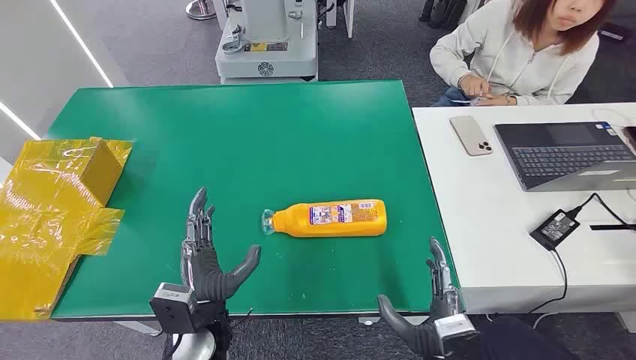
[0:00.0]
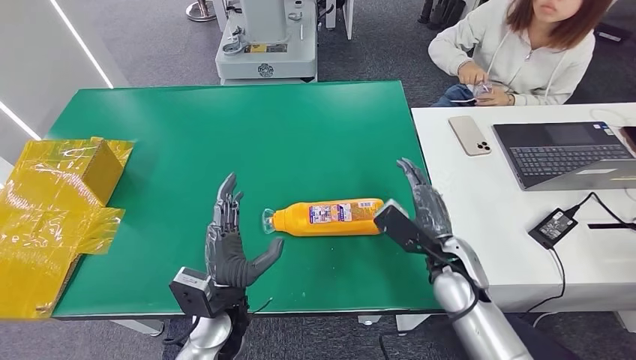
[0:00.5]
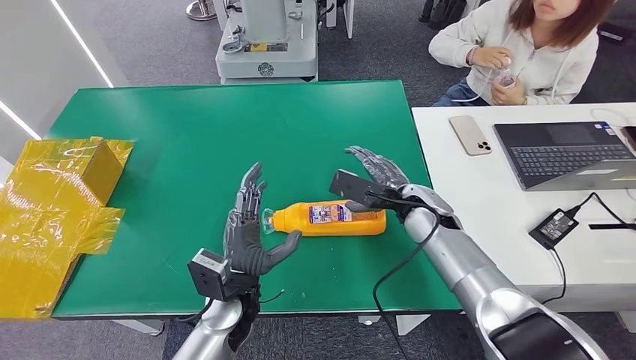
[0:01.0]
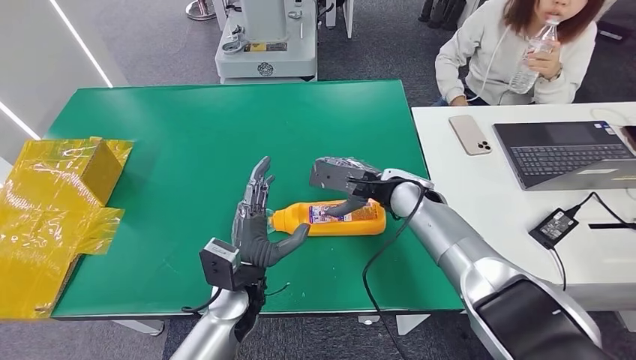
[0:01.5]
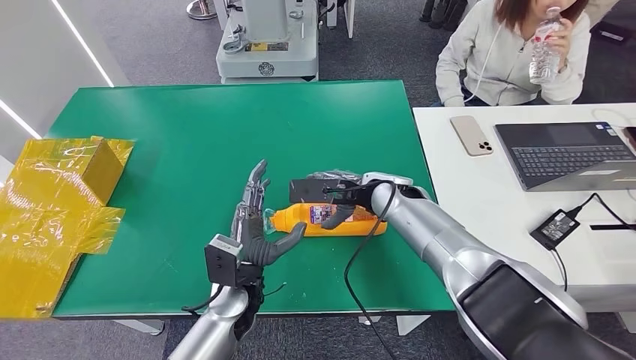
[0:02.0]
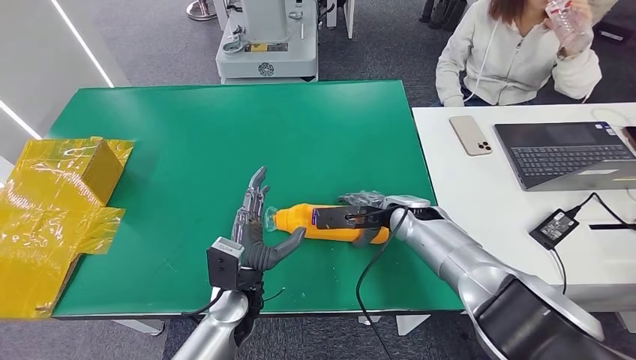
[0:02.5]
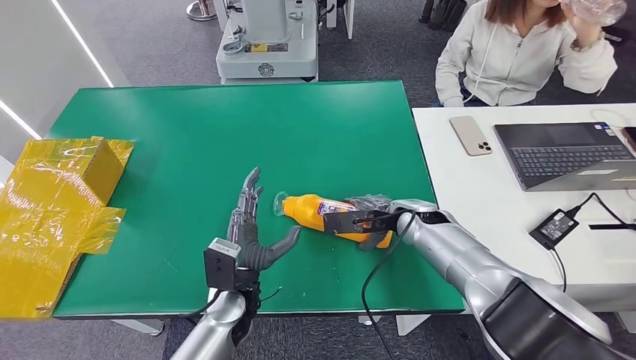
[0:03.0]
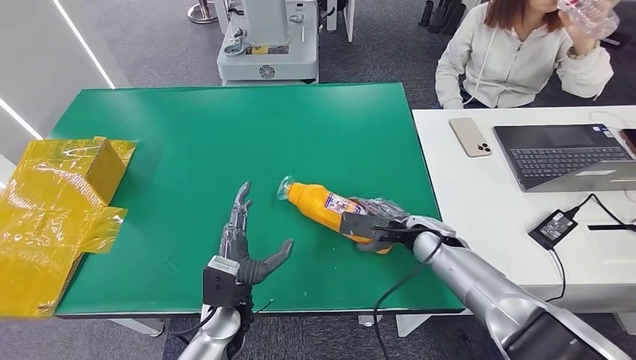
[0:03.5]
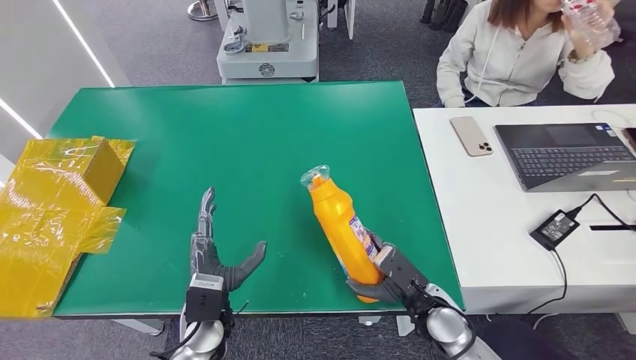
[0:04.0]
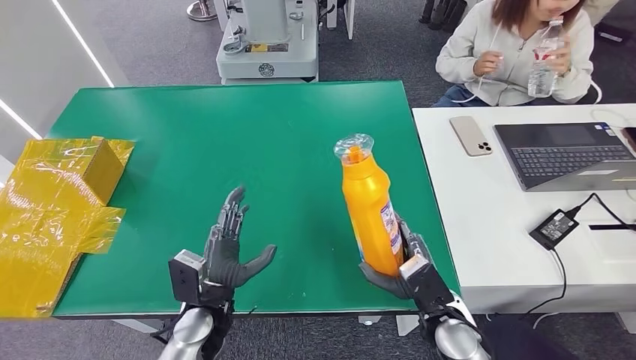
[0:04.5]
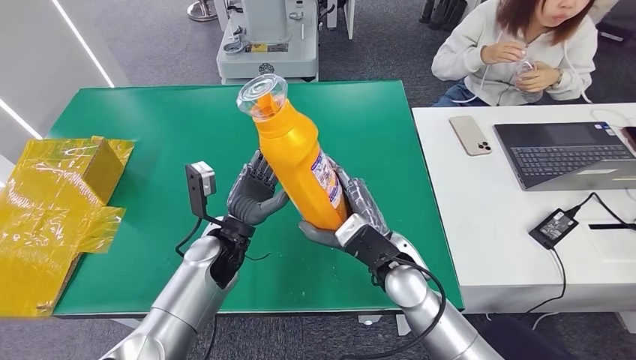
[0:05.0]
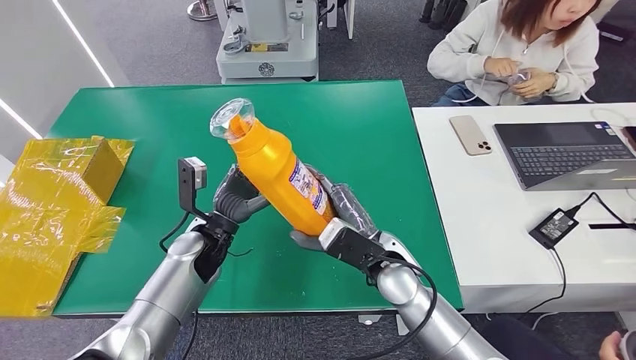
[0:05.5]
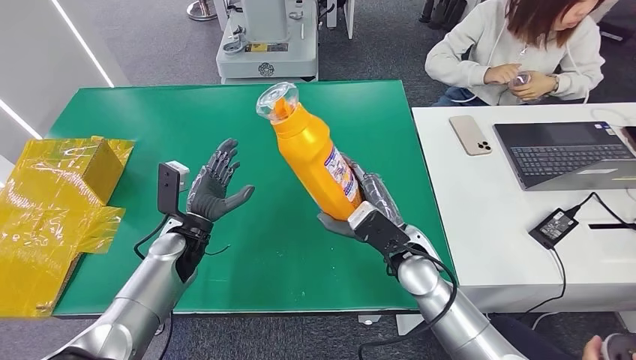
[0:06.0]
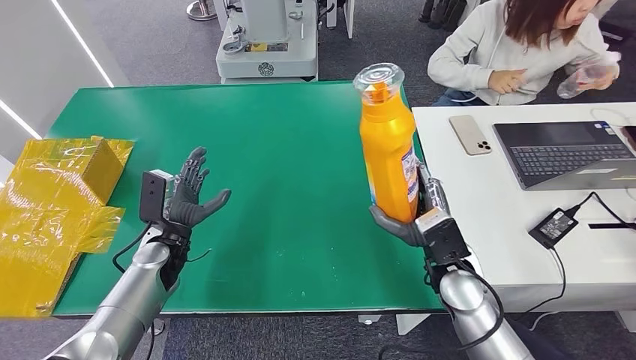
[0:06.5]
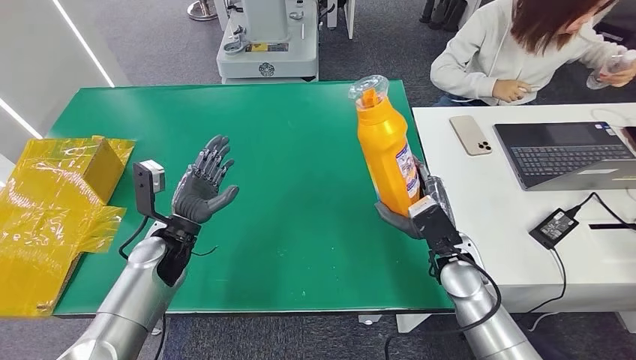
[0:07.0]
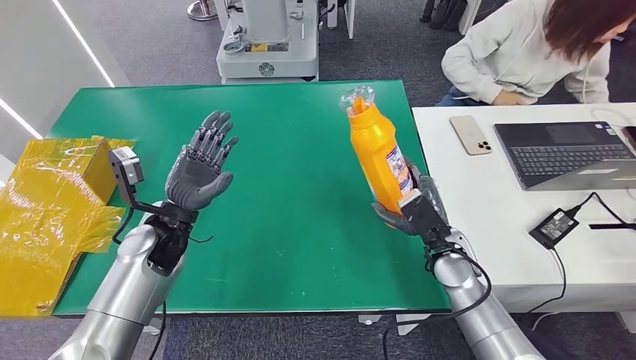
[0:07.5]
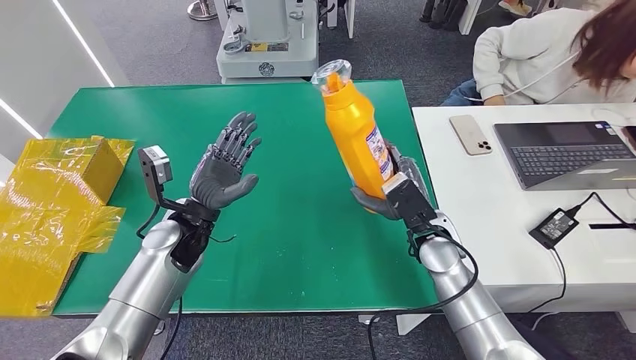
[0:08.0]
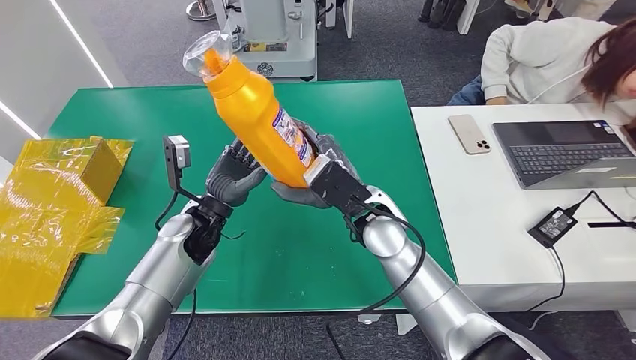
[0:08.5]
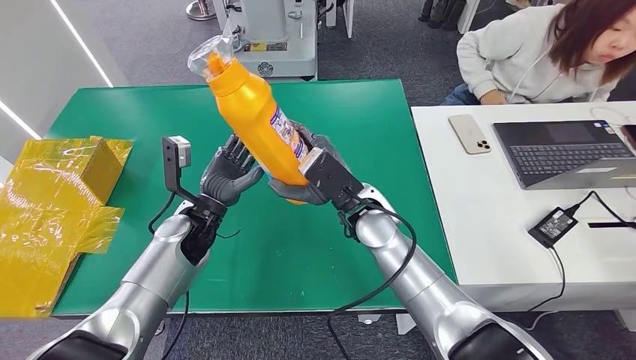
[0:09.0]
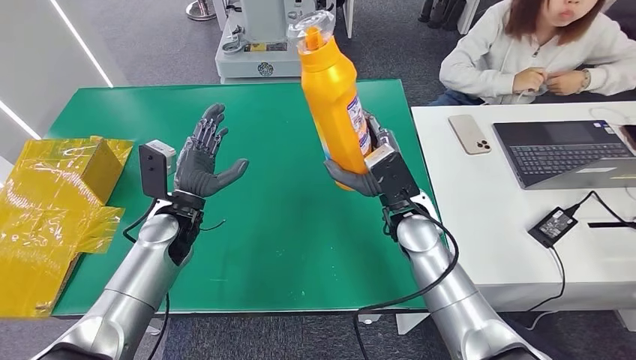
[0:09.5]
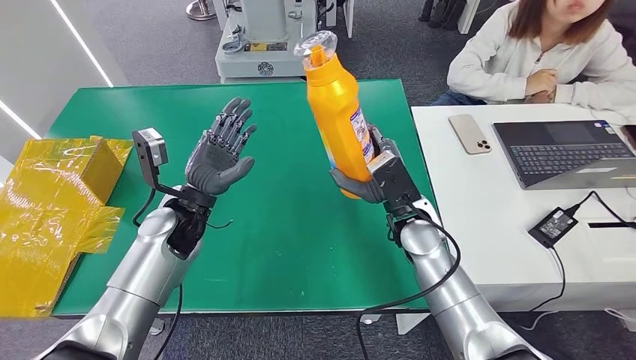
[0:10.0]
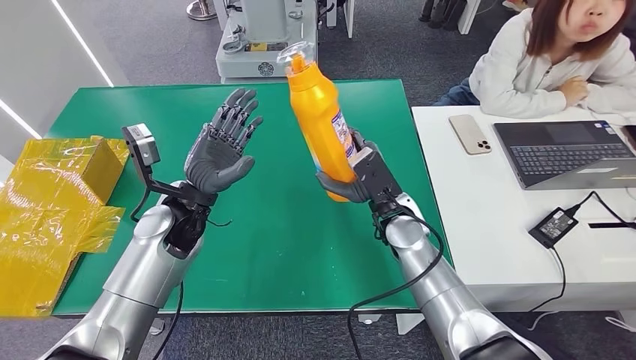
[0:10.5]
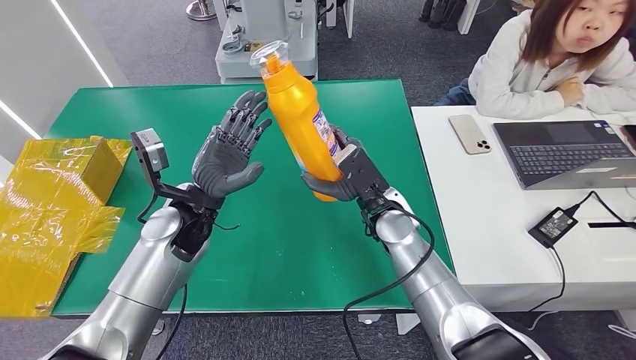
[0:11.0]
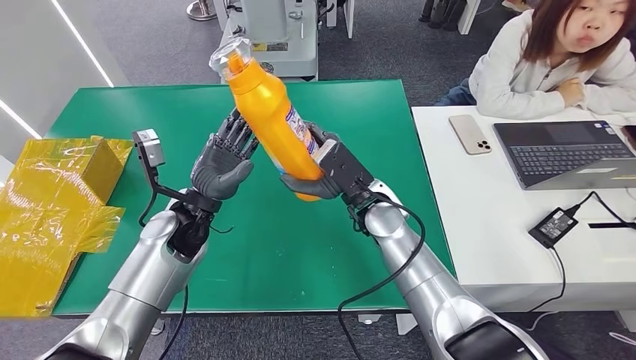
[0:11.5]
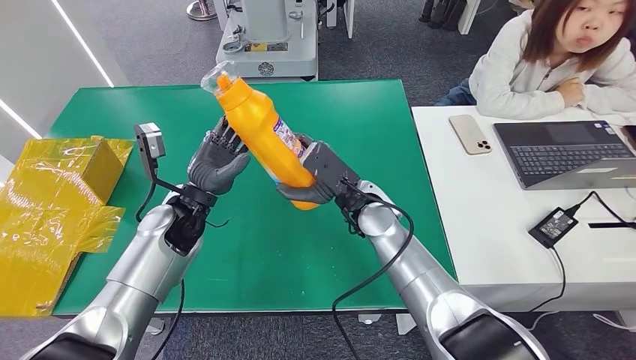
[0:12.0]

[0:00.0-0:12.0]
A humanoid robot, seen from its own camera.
Step, 0:00.0 to 0:11.5: Pick up the bottle from the table.
0:02.0 to 0:04.0: The right hand travels backward, downward and to the right by about 25 cm, while the left hand ends up roughly 5 cm from where it was.

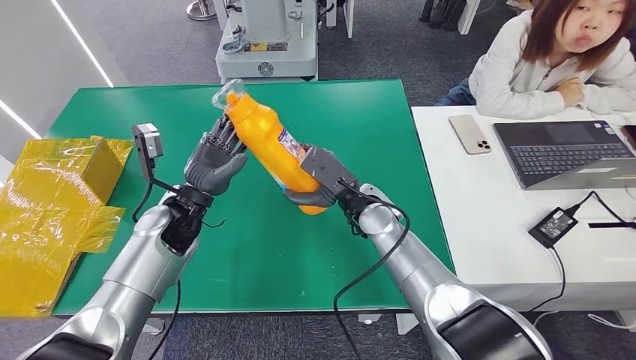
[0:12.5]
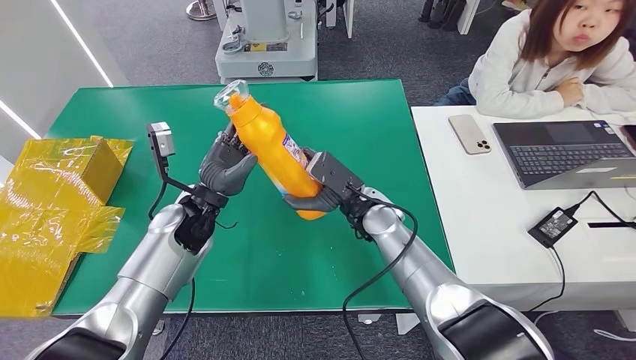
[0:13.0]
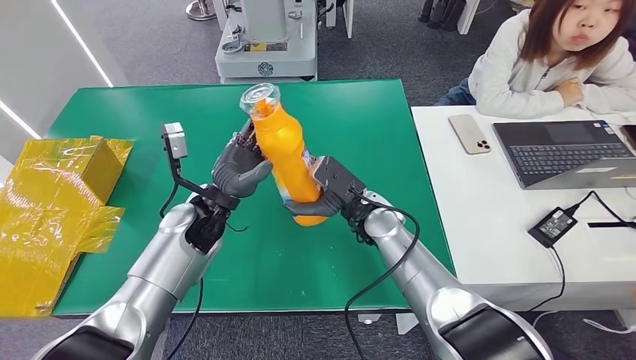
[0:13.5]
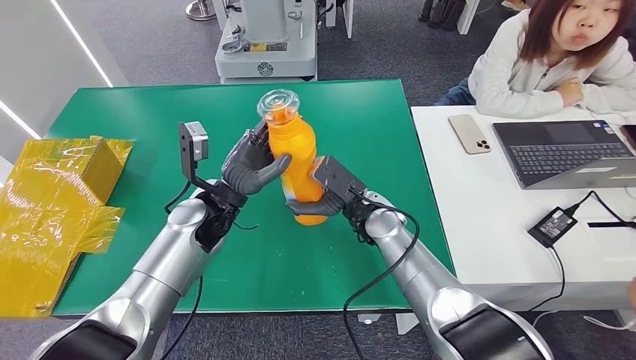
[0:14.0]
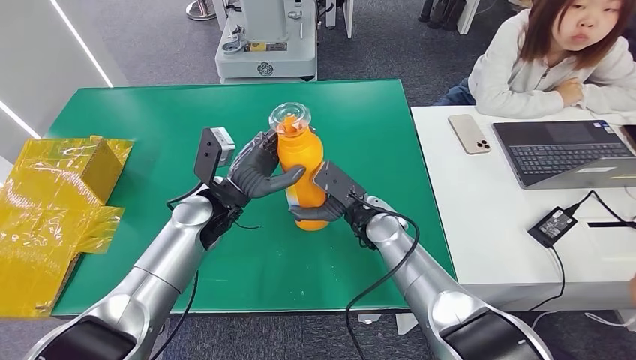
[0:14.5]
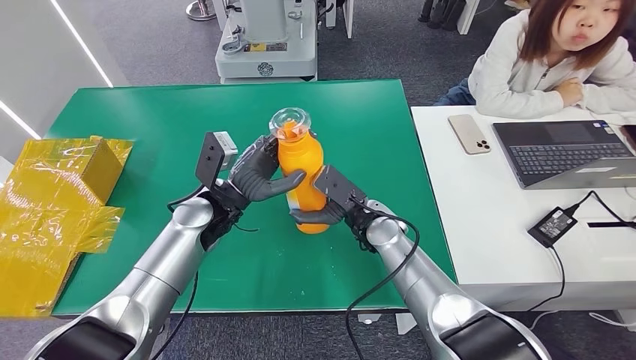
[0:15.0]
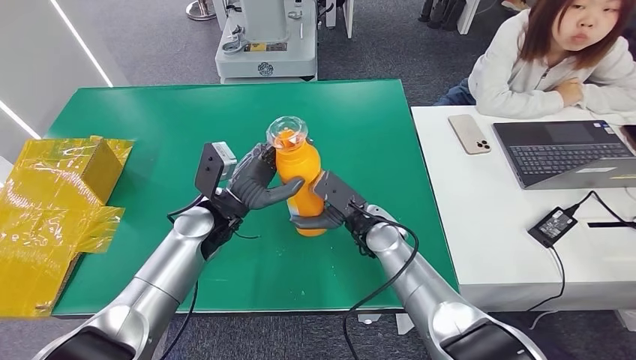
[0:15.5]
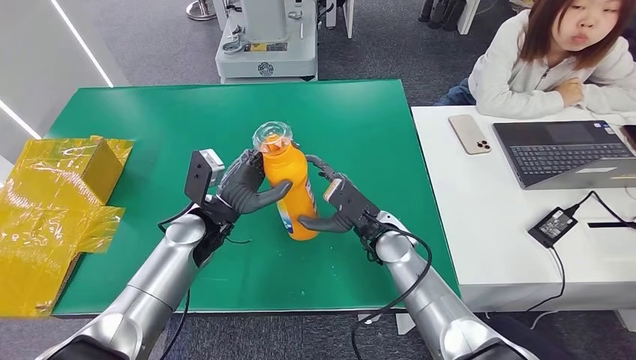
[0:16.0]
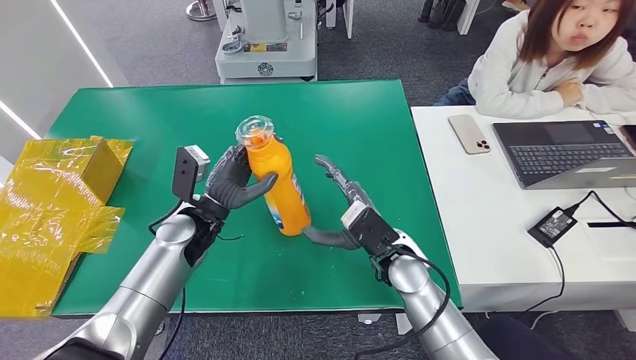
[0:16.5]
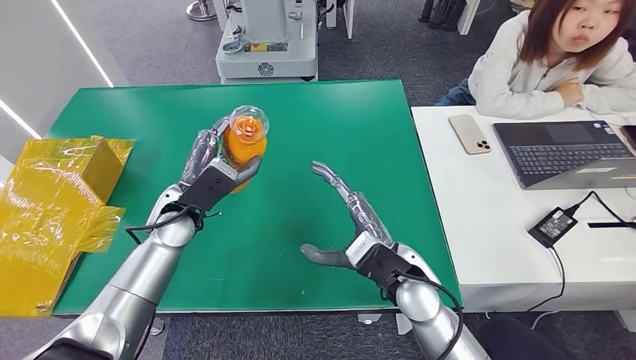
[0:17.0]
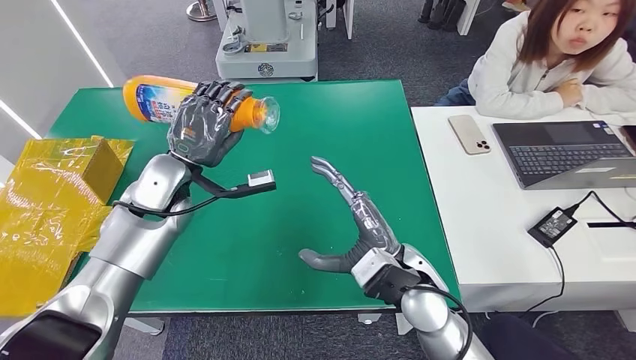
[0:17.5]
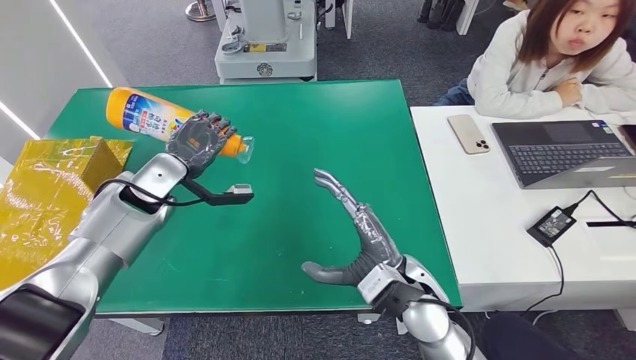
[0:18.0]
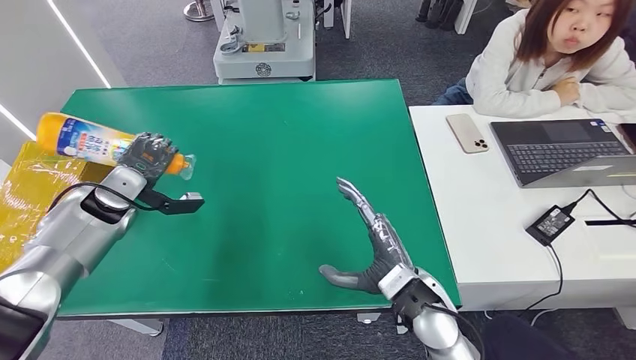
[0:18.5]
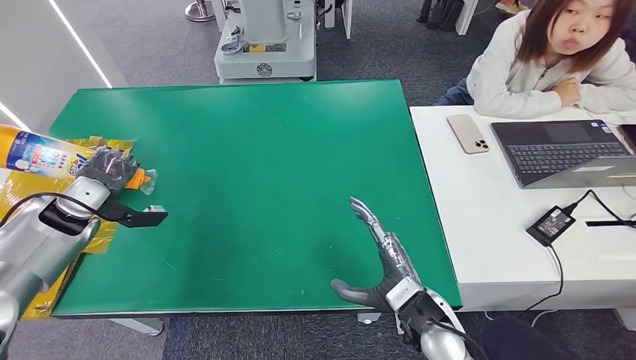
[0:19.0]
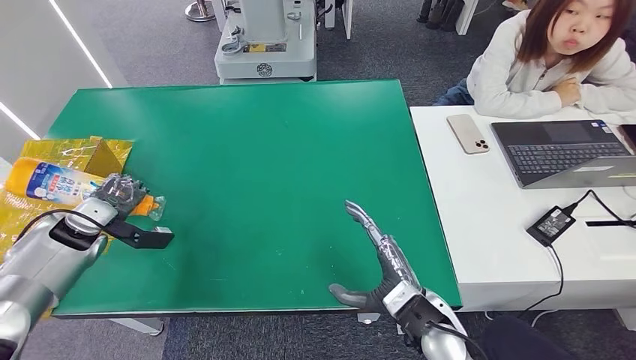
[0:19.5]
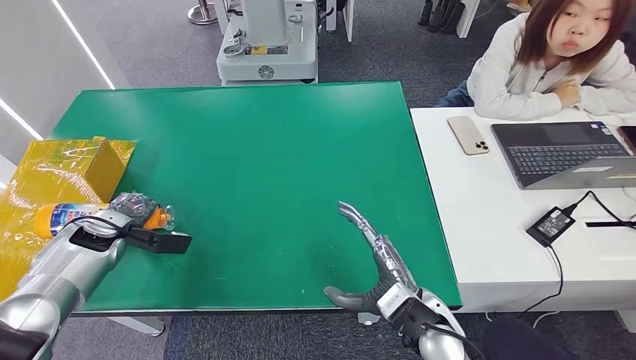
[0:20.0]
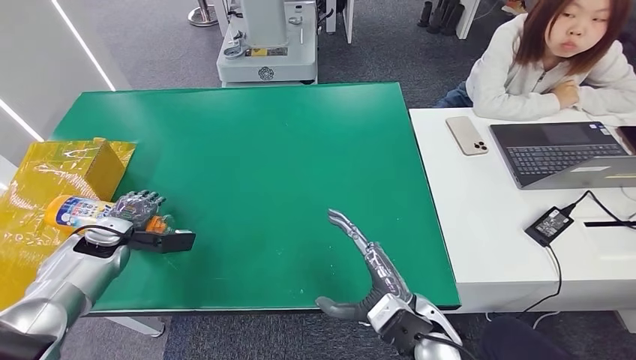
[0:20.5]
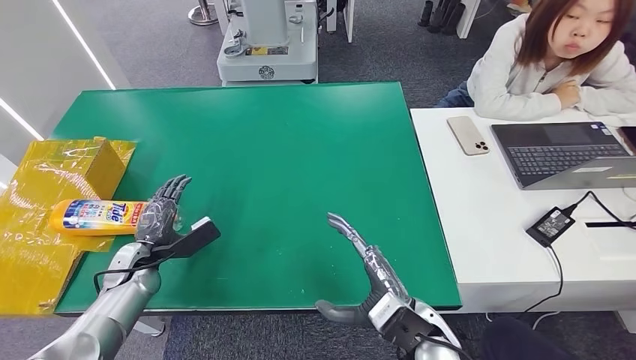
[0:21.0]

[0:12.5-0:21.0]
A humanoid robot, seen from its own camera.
Step, 0:12.5 to 0:21.0: Turn the bottle to the front side.
0:12.5 to 0:14.5: The left hand is displaced to the right by roughly 5 cm.
0:14.5 to 0:16.5: The left hand changes place by approximately 5 cm; the right hand heads backward, covering some 5 cm.
0:19.0 to 0:21.0: The left hand goes approximately 15 cm downward, to the right and backward.
